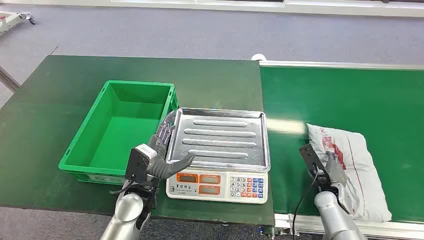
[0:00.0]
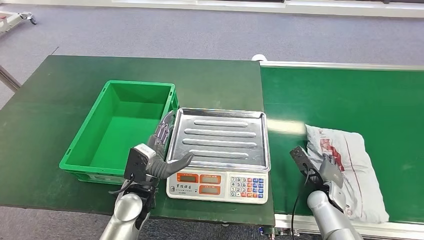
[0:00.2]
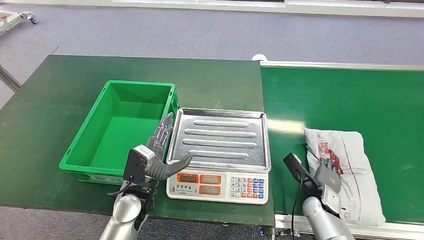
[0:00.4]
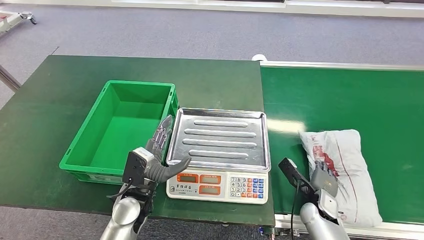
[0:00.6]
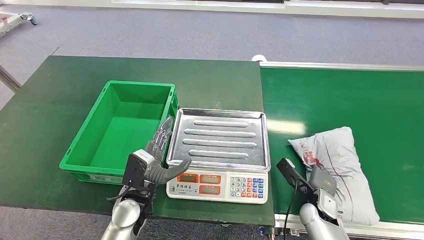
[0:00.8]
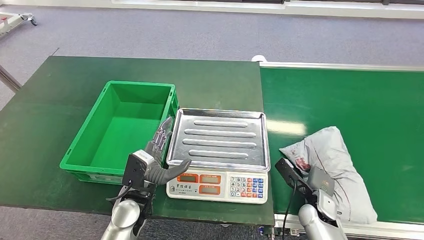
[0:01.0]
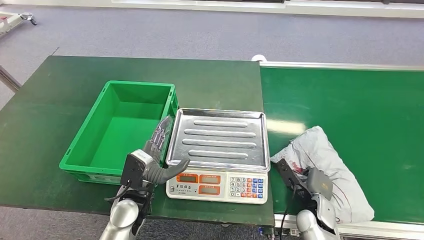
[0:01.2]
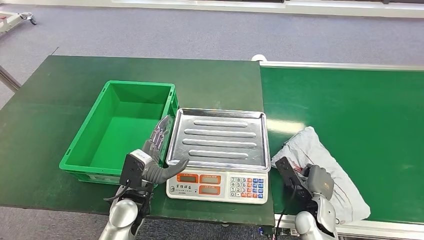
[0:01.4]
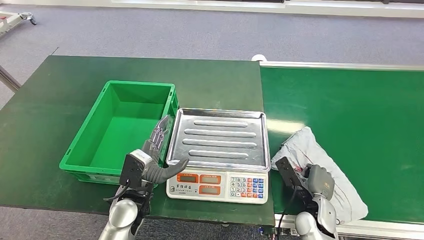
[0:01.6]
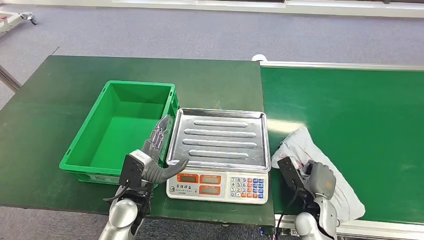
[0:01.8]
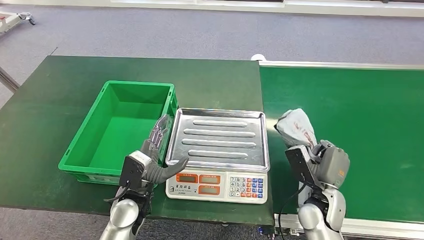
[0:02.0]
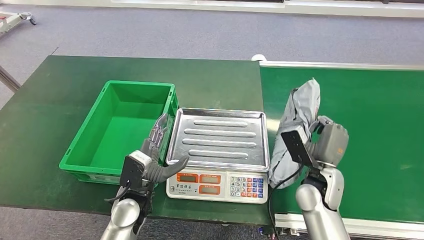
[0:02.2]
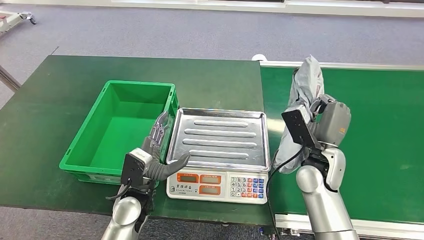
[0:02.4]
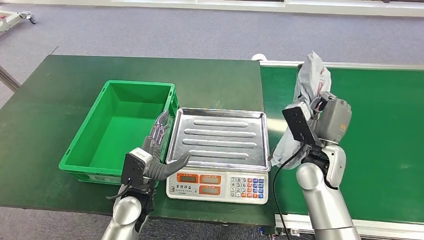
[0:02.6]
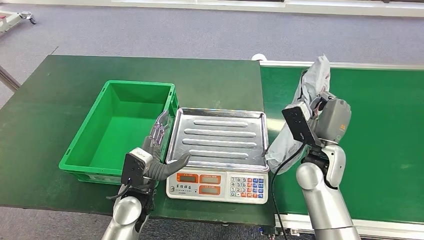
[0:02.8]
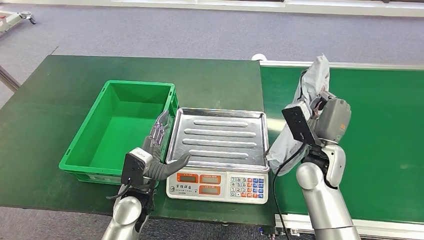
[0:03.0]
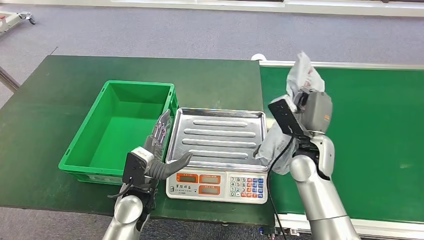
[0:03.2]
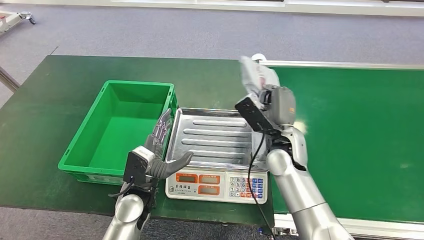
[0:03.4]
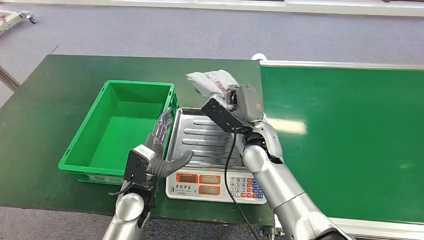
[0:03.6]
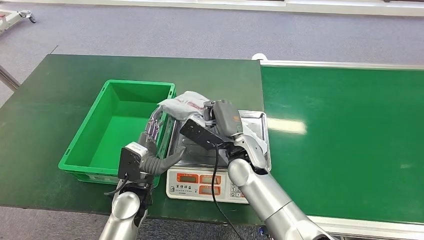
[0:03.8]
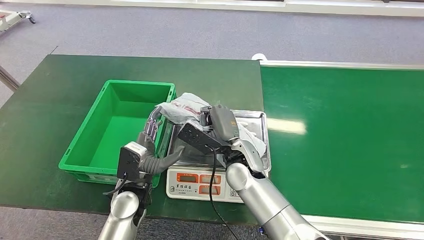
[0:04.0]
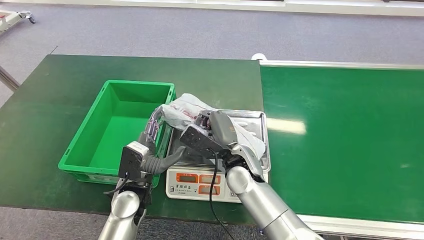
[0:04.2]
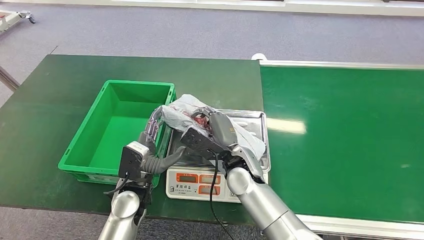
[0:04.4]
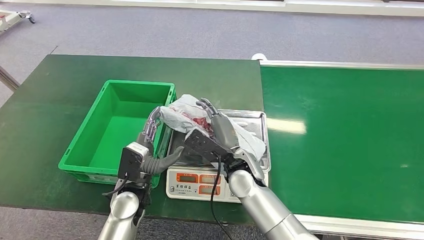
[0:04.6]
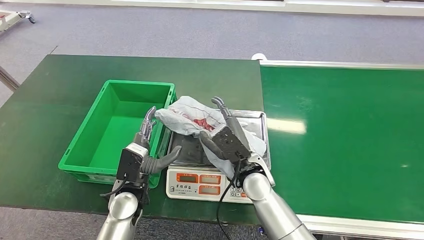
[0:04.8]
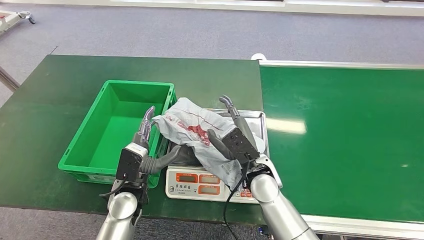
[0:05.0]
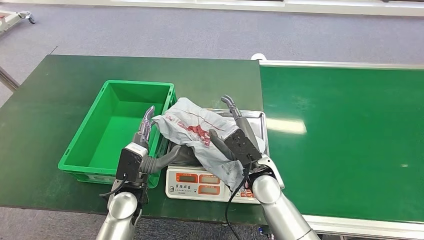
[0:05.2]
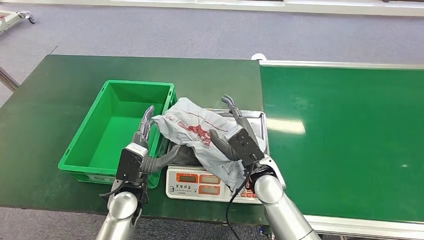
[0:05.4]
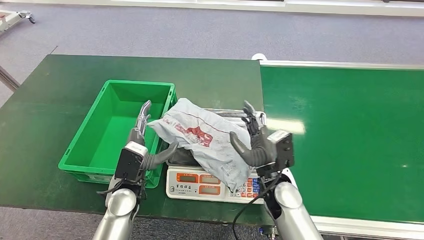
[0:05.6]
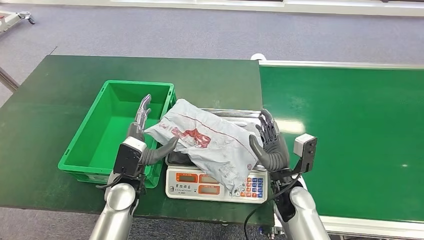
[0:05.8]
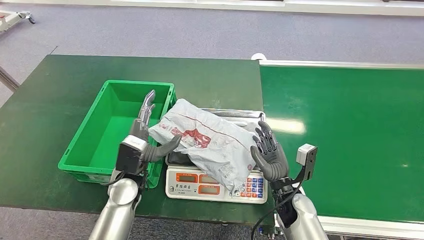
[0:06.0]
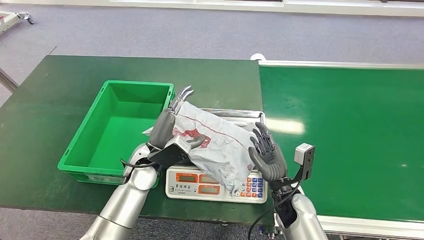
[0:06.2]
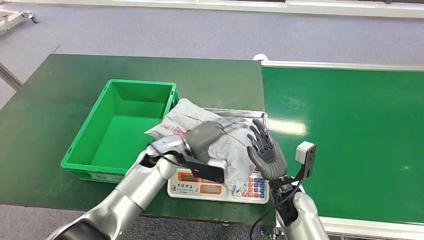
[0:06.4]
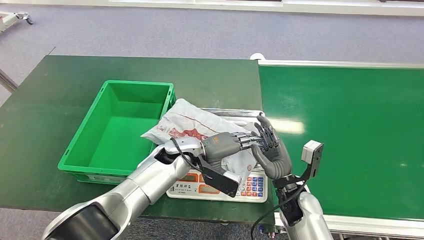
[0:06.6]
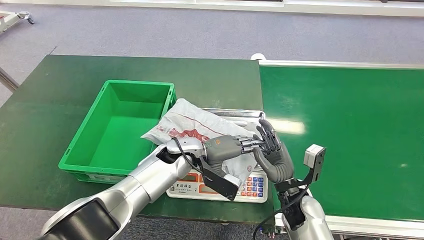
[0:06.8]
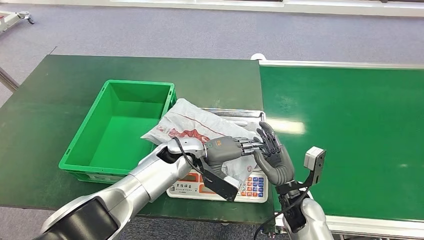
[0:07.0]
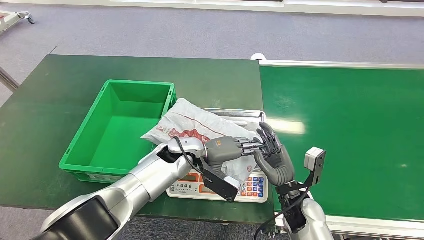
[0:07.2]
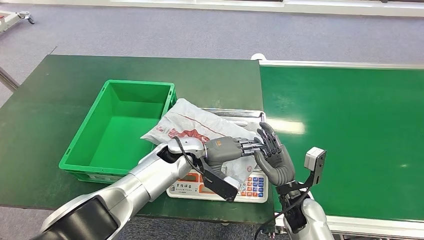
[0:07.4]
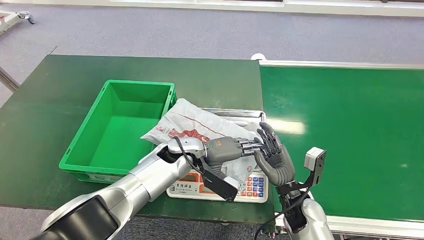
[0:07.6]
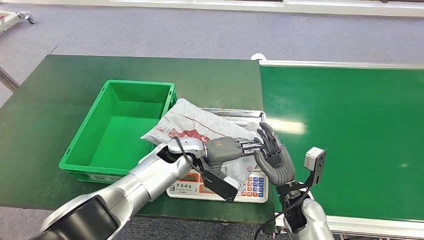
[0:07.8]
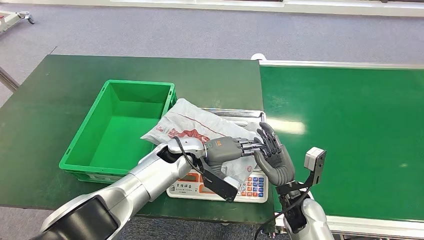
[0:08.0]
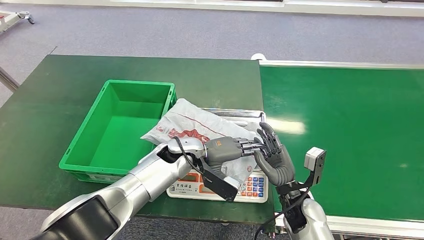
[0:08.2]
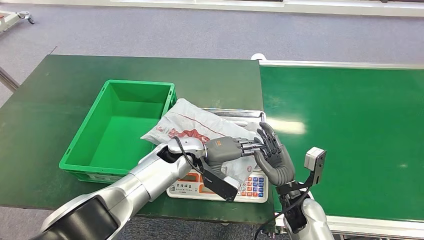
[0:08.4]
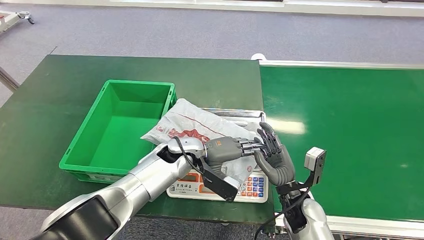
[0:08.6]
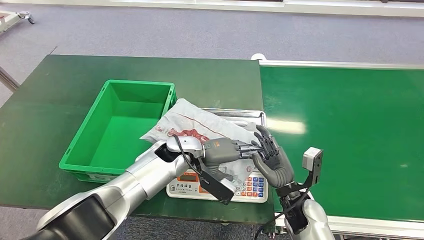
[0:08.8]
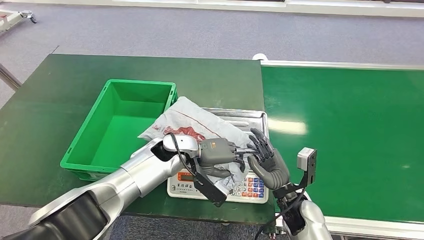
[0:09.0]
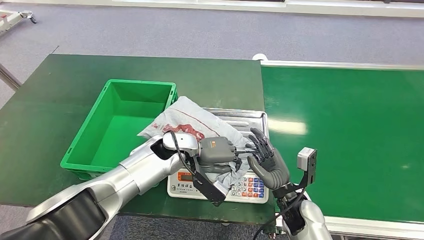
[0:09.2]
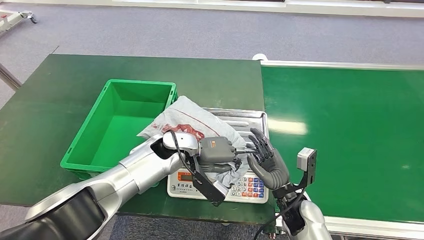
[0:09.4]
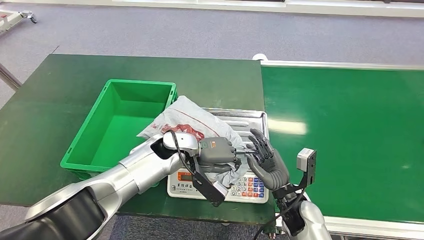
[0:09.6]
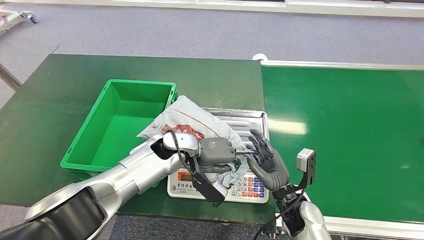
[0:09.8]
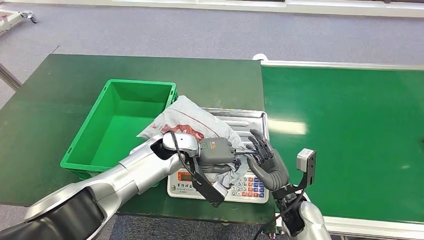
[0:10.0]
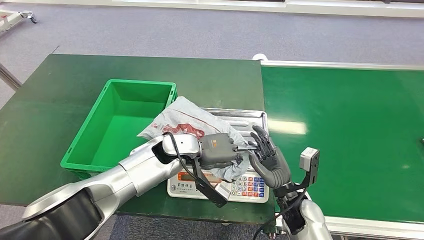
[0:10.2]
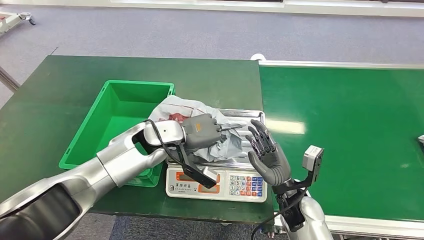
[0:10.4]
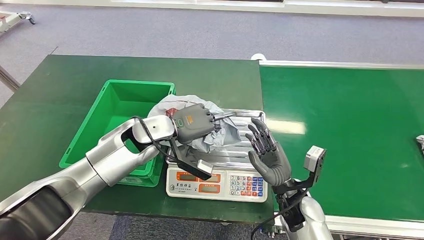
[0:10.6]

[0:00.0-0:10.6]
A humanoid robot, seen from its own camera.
Task of the whole recording: Weigh the package on the weighing device and place it in the left basket.
Step, 0:00.0 to 0:02.4: Pick up the package from the conveyor belt.
Step, 0:02.6 to 0:05.4: Place the package onto the inbound machine.
0:01.6 to 0:03.0: The right hand heads upward and forward, covering approximately 15 cm.
0:04.6 to 0:06.0: The right hand goes approximately 15 cm to the right and downward.
0:06.0 to 0:07.6: The left hand moves forward and to the right, roughly 10 cm.
0:07.6 to 0:09.0: The hands move only a little.

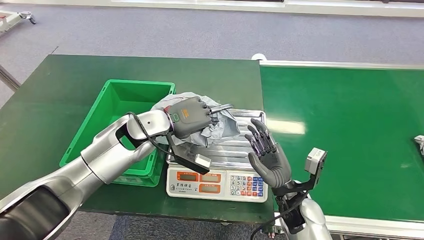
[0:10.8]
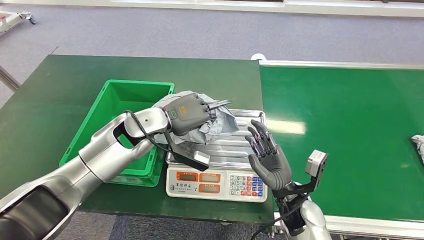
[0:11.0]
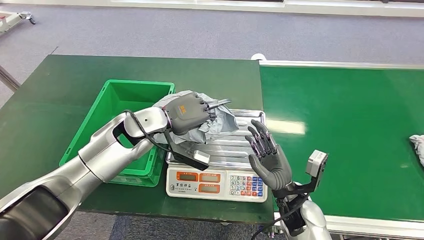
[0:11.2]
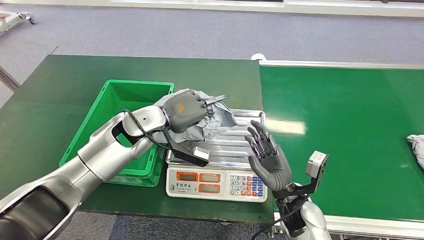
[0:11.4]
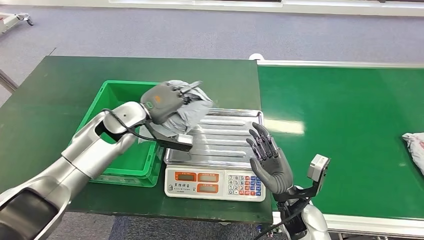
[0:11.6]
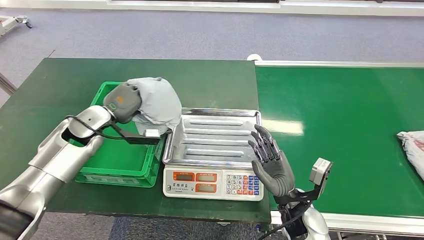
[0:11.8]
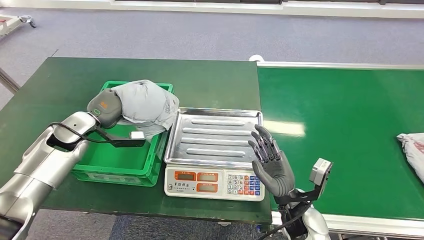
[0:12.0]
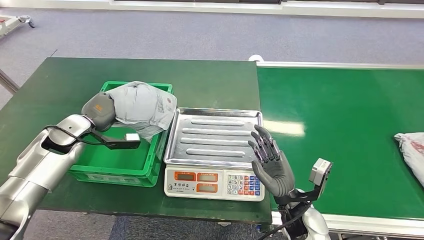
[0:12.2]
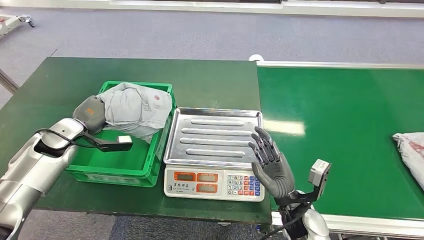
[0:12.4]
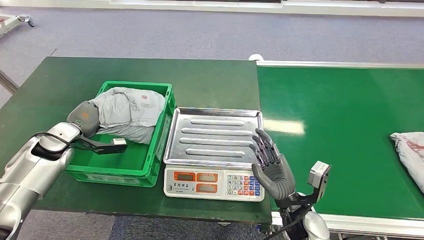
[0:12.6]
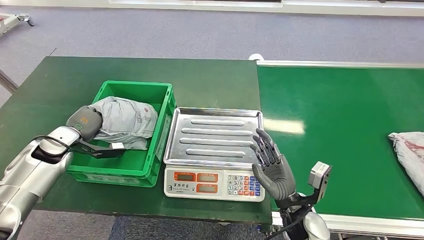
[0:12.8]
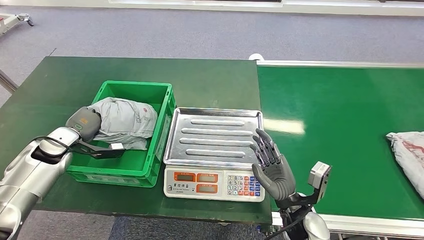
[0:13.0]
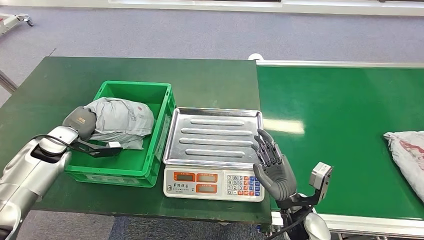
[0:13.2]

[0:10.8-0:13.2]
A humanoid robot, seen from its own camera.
Task of the whole recording: Weigh the package on the weighing device and place it in the left basket.
Step, 0:11.0 to 0:13.2: Place the package into the parcel locker.
